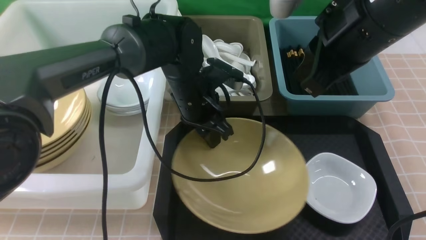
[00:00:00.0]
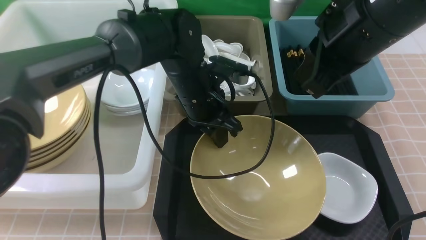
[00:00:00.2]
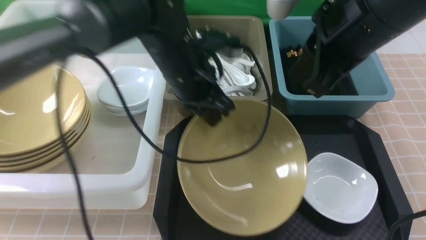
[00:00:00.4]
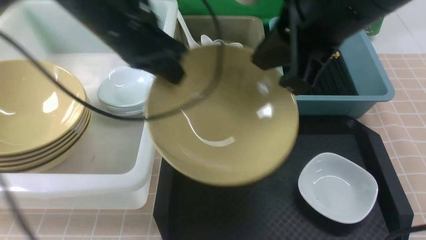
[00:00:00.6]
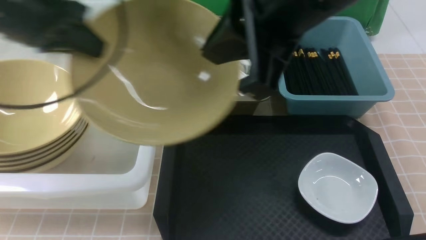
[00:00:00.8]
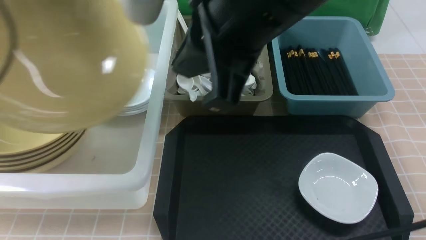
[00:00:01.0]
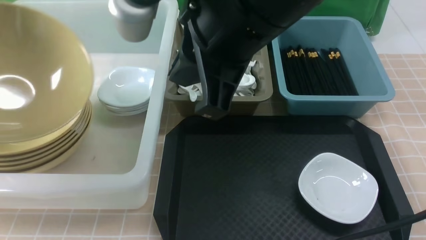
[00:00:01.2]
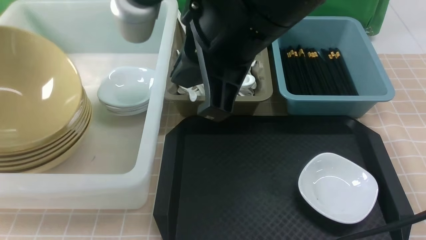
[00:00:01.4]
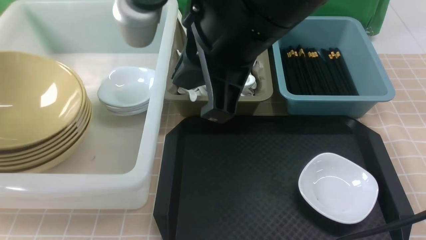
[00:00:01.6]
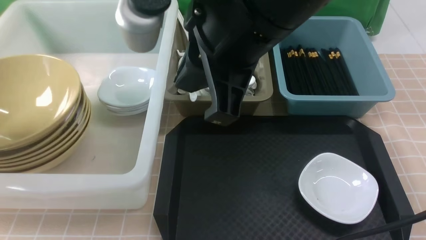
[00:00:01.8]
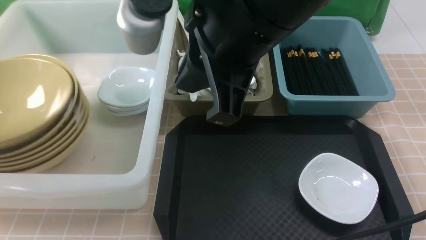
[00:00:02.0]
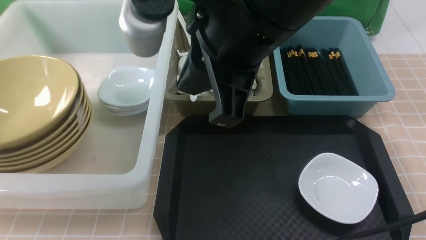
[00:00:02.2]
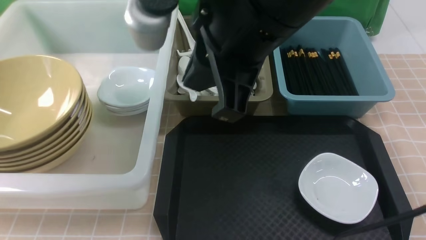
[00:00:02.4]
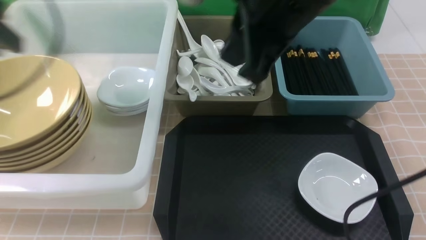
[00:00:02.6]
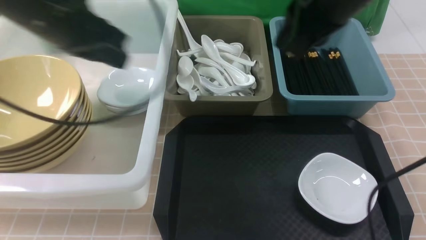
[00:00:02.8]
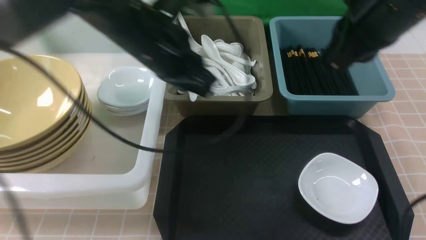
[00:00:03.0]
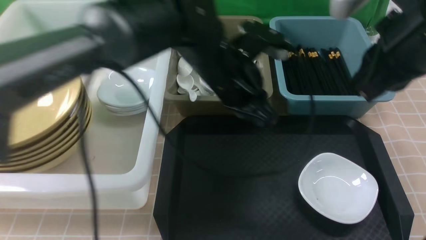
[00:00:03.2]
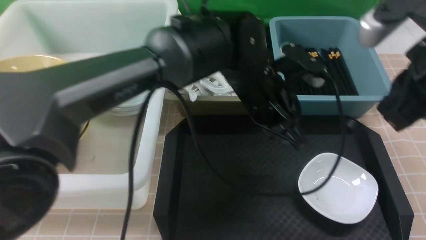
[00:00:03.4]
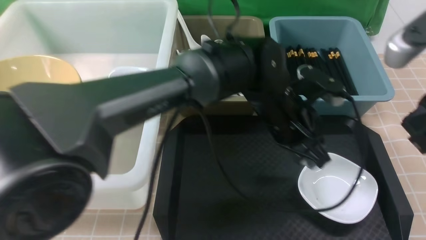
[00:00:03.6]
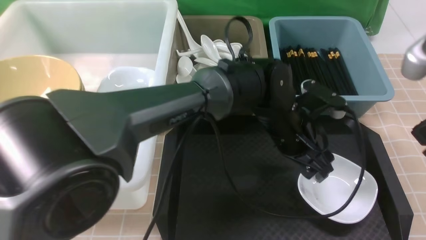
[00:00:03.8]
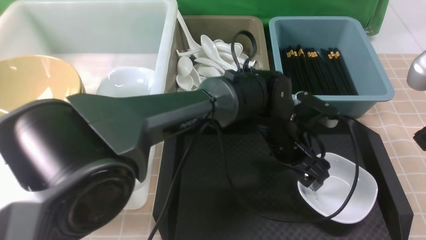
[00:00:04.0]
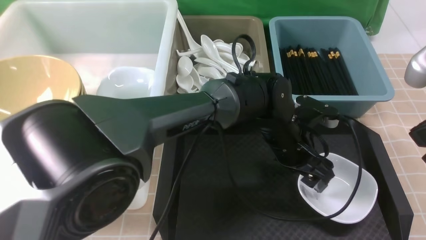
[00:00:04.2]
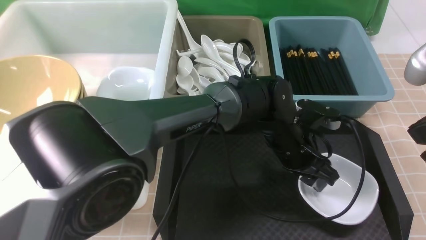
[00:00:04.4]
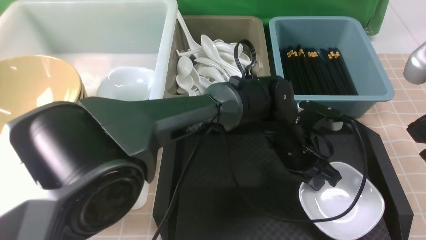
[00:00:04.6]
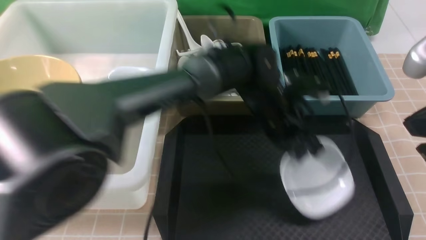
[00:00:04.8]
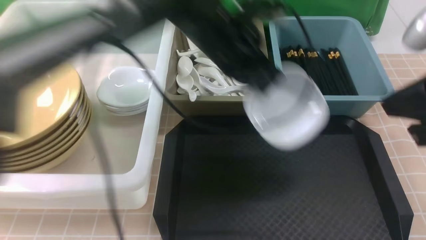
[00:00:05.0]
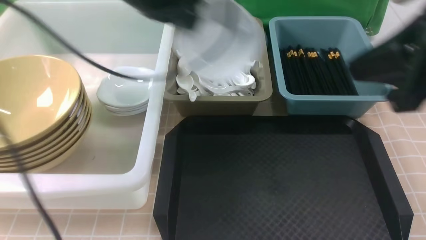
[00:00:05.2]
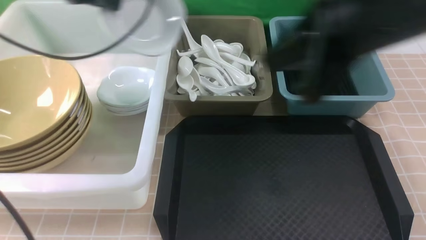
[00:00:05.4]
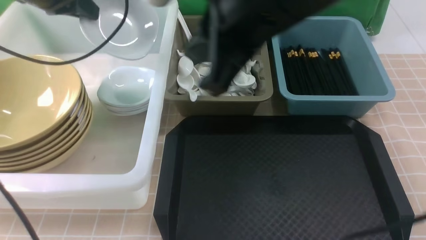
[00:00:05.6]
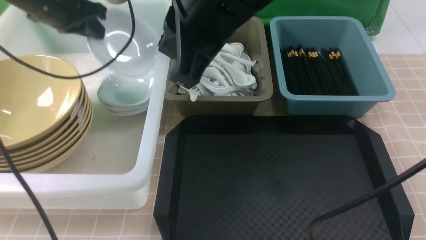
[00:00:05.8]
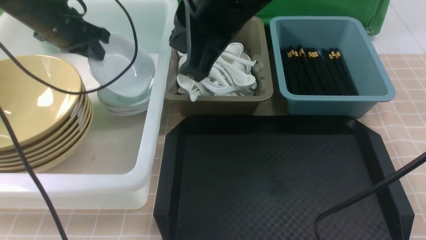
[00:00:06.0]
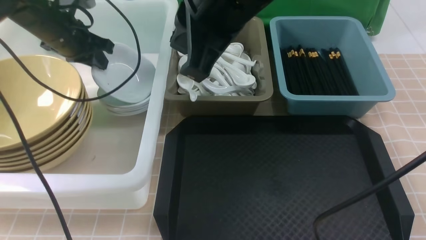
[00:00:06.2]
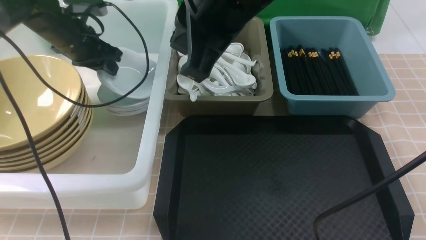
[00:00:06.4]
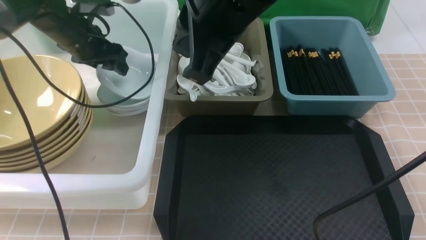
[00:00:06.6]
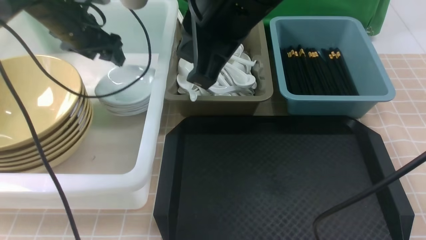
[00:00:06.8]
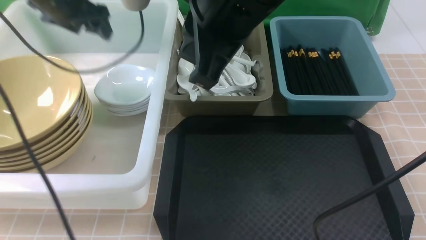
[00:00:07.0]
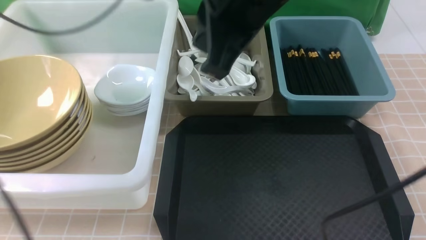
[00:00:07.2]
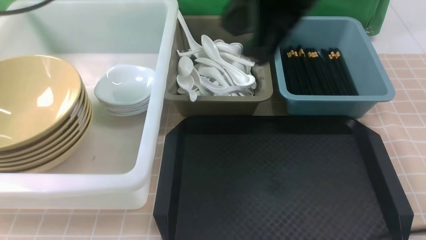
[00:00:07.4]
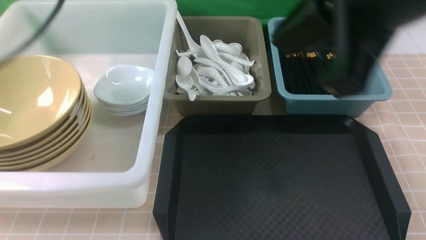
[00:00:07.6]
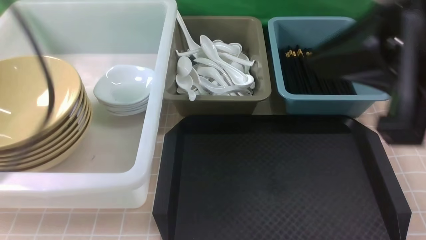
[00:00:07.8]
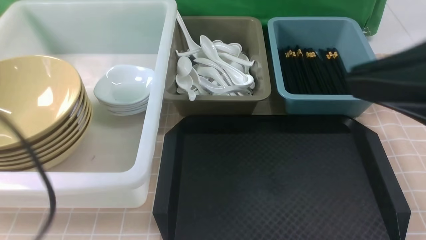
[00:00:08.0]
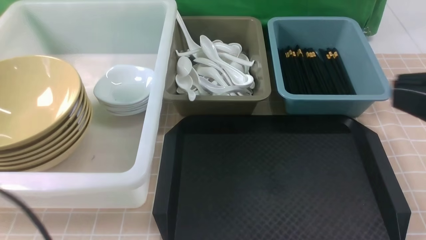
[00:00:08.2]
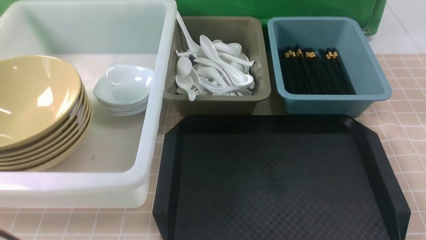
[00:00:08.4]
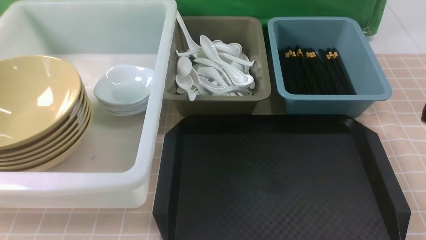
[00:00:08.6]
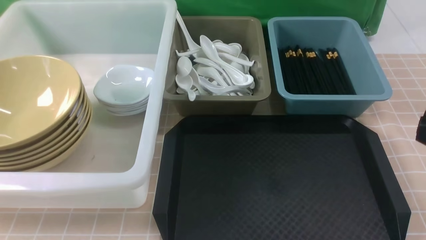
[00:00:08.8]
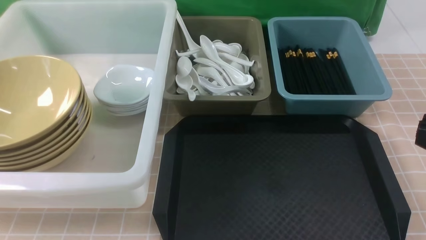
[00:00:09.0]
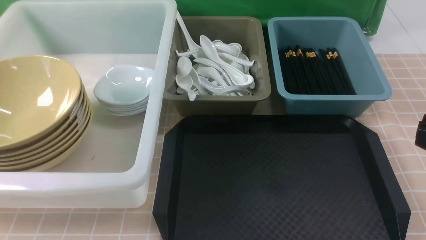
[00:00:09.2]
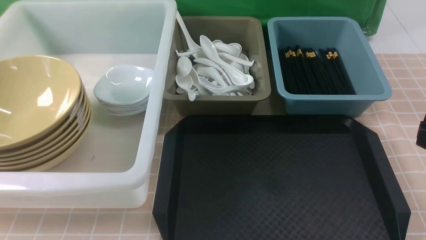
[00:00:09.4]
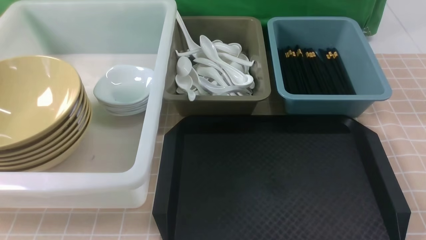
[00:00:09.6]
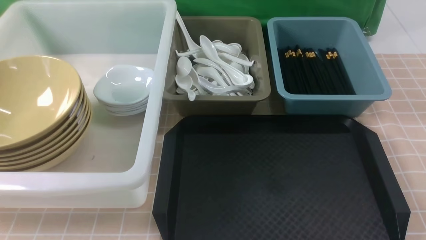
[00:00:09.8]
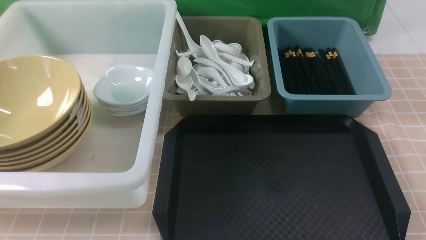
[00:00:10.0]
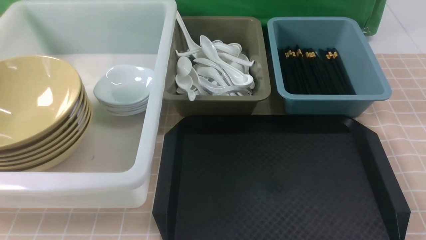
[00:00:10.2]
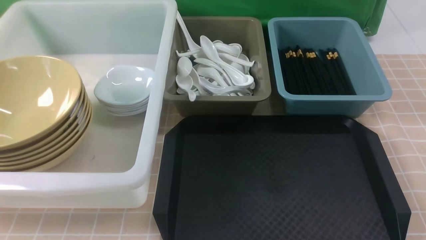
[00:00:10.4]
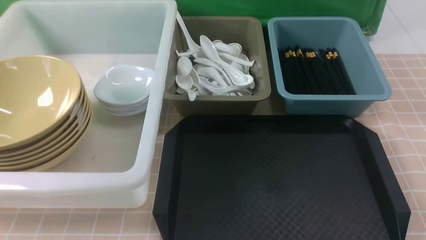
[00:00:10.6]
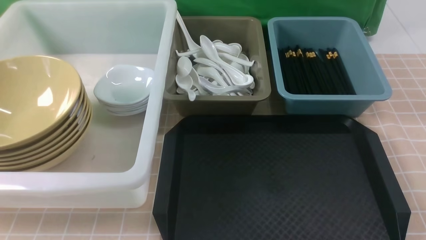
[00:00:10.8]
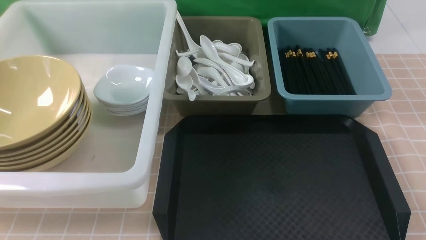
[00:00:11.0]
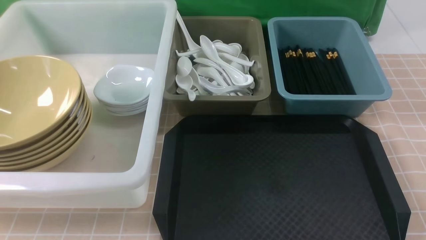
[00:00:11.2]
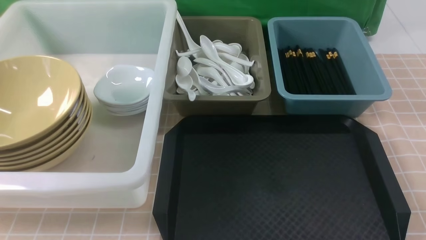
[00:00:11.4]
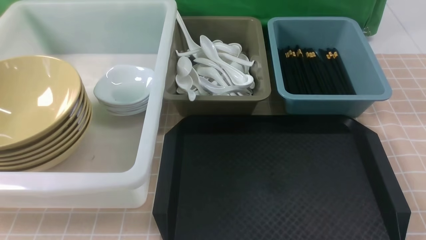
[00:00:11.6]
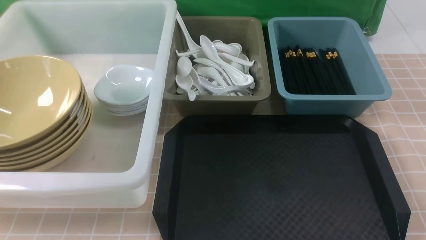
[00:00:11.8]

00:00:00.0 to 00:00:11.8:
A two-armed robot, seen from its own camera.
Task of the whole recording: on brown table put chopsticks spoon bowls plates into blue grey white boxes.
Step, 00:00:00.6 to 00:00:02.0: use the left arm to put the noodle bowl into the large storage box on the left.
Step, 00:00:02.2 to 00:00:04.8: use the left arm to grab the plate.
Step, 00:00:05.0 to 00:00:07.0: use the left arm to put the plate into the large storage box on the left.
00:00:00.0 to 00:00:01.4: The right gripper heads to the left, covering about 10 cm, while the left gripper moves to the left, approximately 35 cm, and closes up.
00:00:01.4 to 00:00:03.0: The right gripper goes about 15 cm to the right and forward. Meanwhile the left gripper heads to the right, covering approximately 30 cm, and opens and closes again.
00:00:03.0 to 00:00:04.4: The left gripper goes about 30 cm to the right and downward, and opens up; the right gripper travels backward and to the right by roughly 15 cm.
00:00:04.4 to 00:00:06.0: The right gripper moves to the left, about 20 cm. The left gripper travels to the left by some 35 cm, and closes.
00:00:06.0 to 00:00:07.4: The right gripper changes place by roughly 5 cm. Meanwhile the left gripper travels upward and backward by some 20 cm, and opens, then closes again.
00:00:07.4 to 00:00:08.8: The left gripper heads backward and downward, covering approximately 35 cm. The right gripper moves to the right, backward and downward, roughly 25 cm.

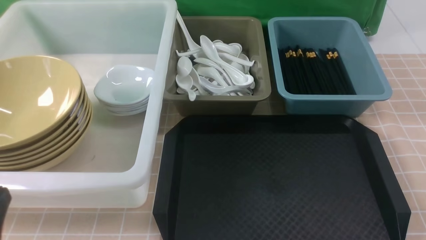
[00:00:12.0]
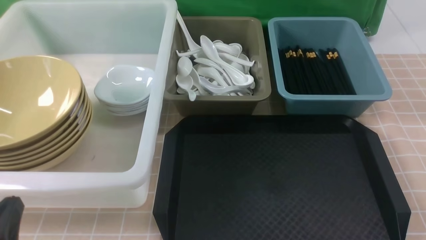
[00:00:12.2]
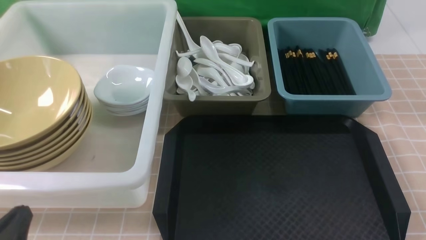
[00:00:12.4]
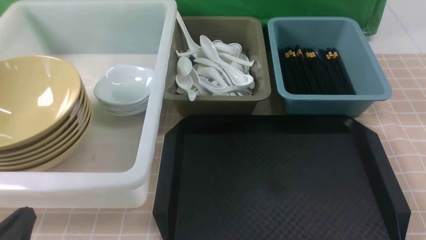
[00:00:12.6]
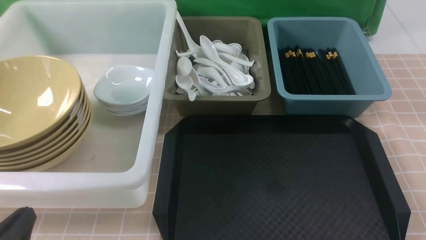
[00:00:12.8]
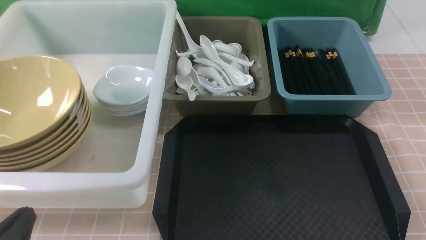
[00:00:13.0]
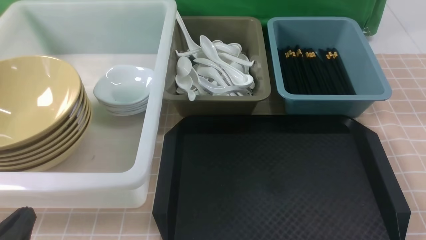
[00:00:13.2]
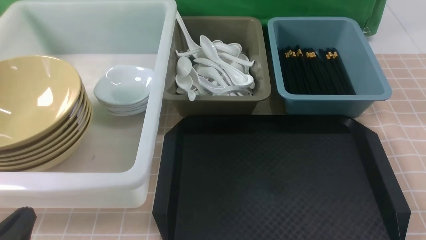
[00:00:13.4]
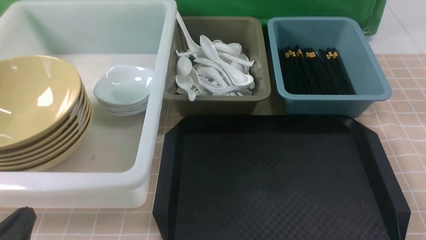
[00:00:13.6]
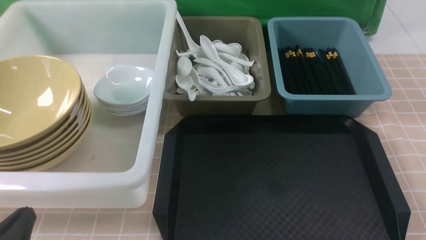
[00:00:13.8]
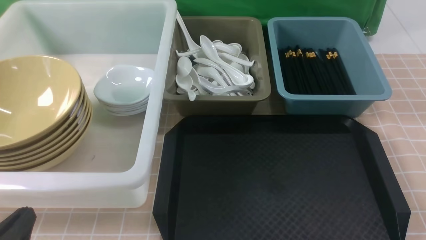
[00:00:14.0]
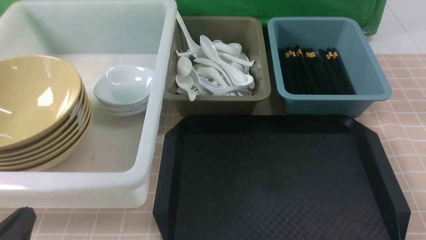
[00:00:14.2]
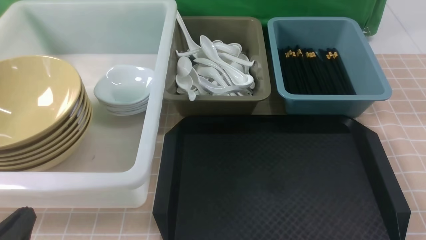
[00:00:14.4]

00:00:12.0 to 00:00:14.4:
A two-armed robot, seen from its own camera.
Task of the whole recording: on brown table put chopsticks spoon bowls plates into blue grey white boxes.
00:00:12.0 to 00:00:13.2: The left gripper goes about 5 cm downward.
00:00:13.2 to 00:00:14.4: The two grippers keep their place.
